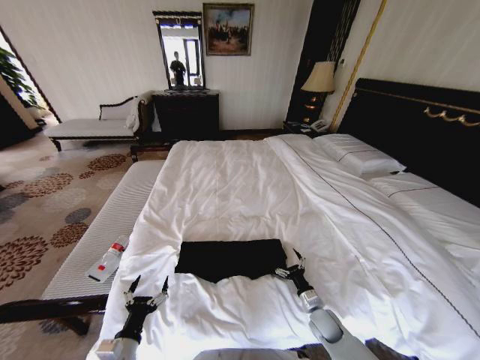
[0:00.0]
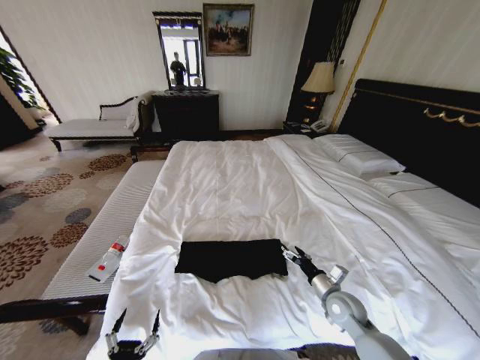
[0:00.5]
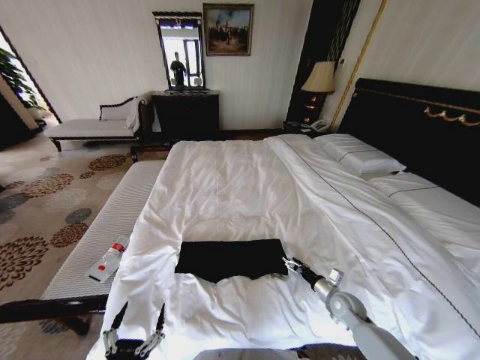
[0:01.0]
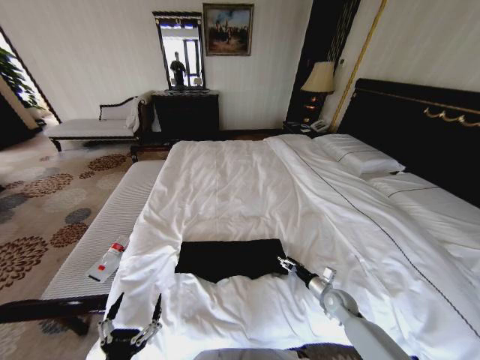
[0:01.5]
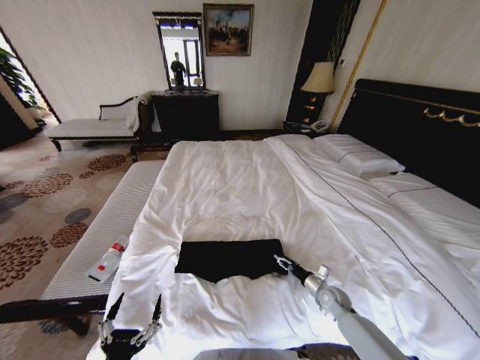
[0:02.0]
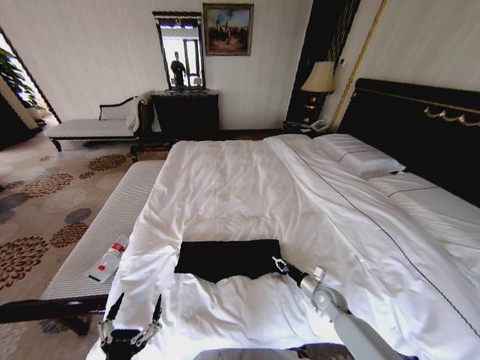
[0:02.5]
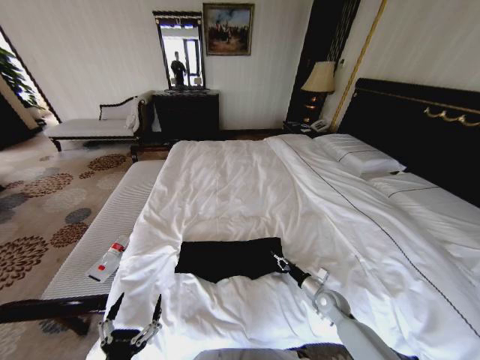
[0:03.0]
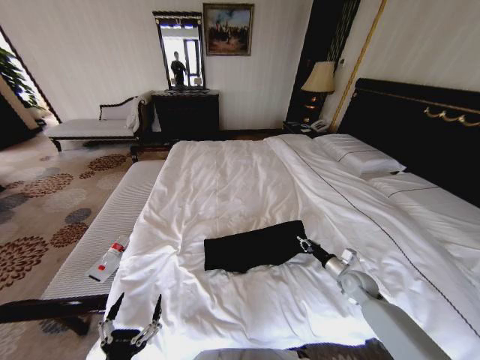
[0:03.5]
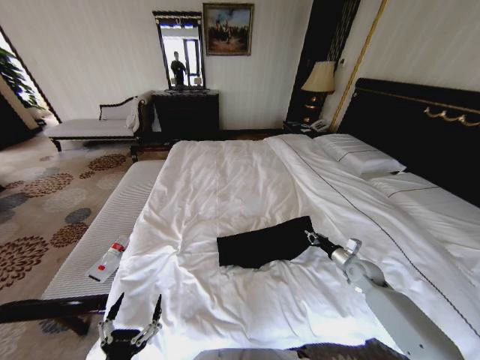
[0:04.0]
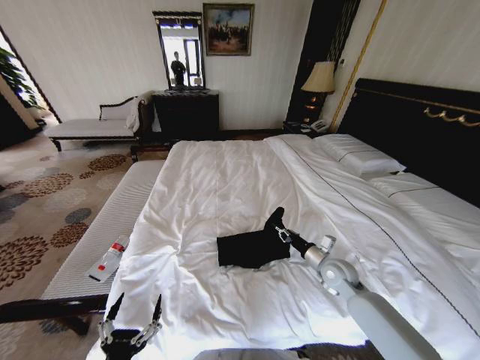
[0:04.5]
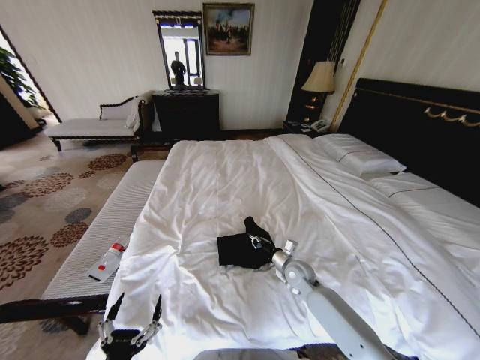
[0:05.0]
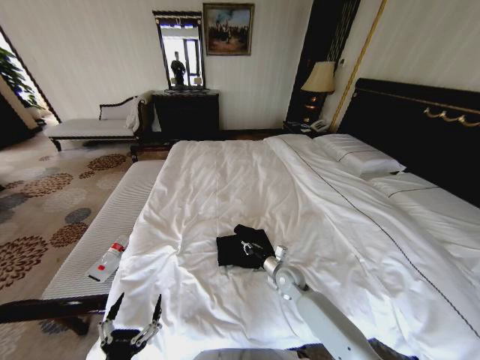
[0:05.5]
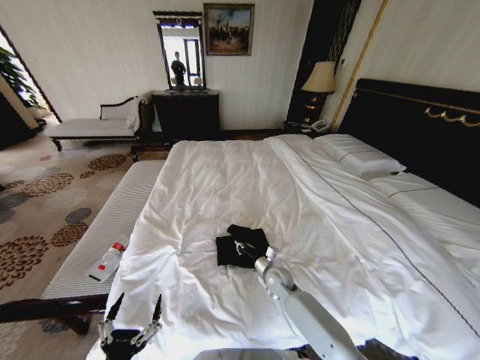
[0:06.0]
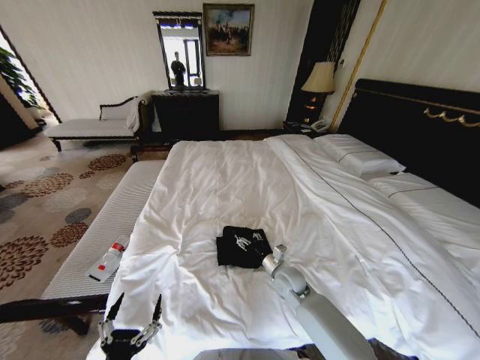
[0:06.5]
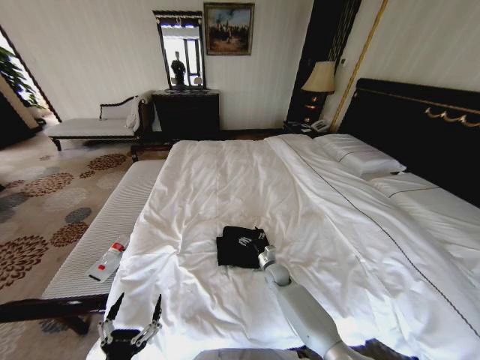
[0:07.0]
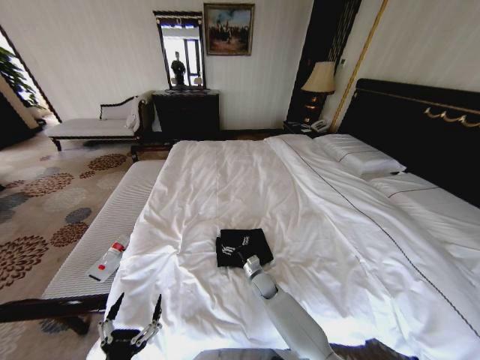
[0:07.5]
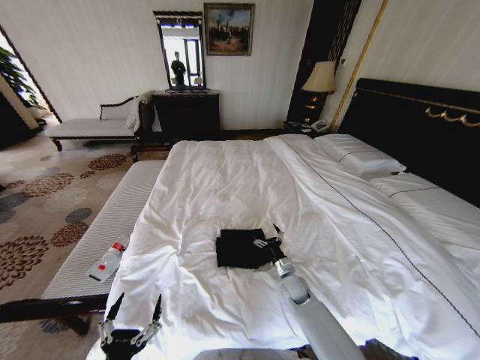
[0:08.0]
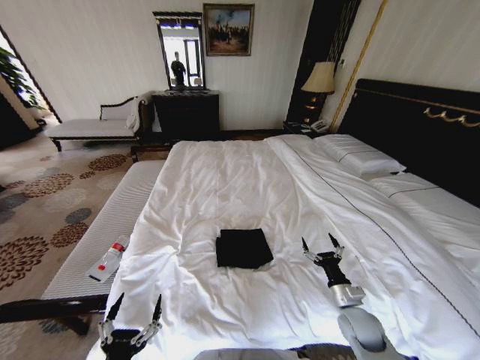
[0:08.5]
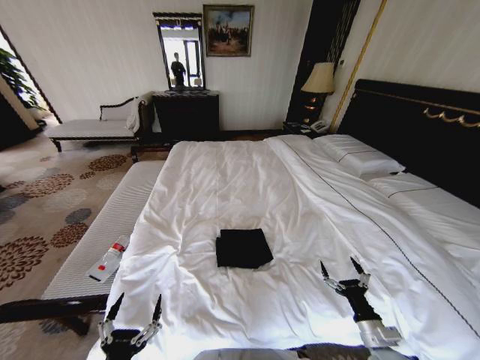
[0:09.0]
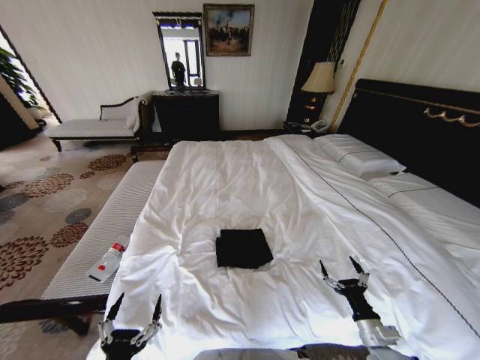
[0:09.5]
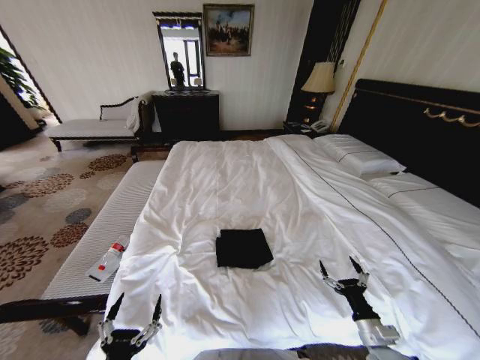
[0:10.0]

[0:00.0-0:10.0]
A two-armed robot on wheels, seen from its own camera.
Task of the whole recording: Fold the clothes on the bed.
0:00.0 to 0:02.0: The left gripper is displaced backward and upward by some 15 cm, while the right gripper is displaced forward and to the right by about 10 cm, and goes upward and returns, about 15 cm each way.
0:02.0 to 0:04.0: The right gripper moves upward, to the right and forward, some 15 cm, and closes.
0:04.0 to 0:06.0: The right gripper shifts approximately 30 cm to the left.
0:06.0 to 0:08.0: The right gripper reaches some 5 cm downward, then returns, and opens up.
0:08.0 to 0:10.0: The right gripper shifts some 25 cm backward and to the right.
